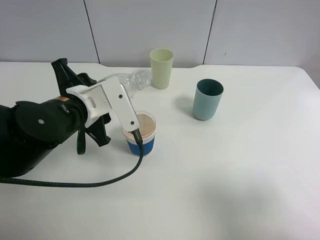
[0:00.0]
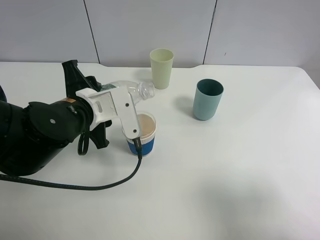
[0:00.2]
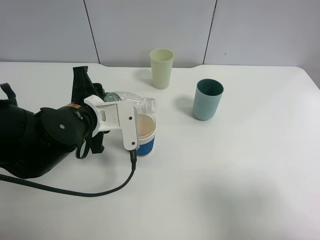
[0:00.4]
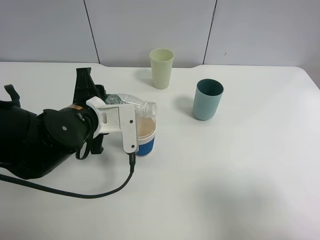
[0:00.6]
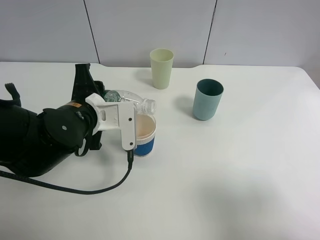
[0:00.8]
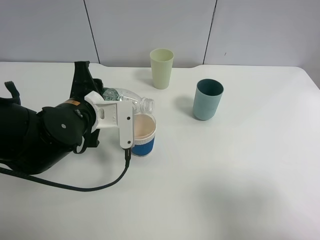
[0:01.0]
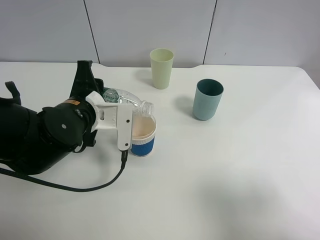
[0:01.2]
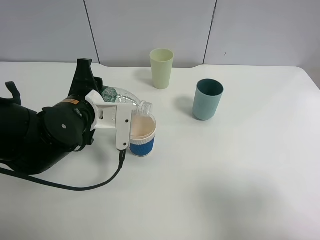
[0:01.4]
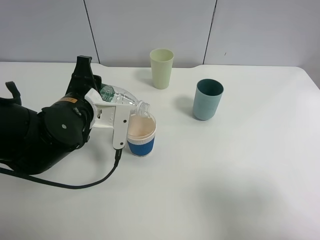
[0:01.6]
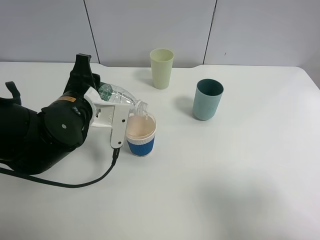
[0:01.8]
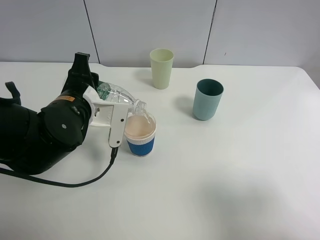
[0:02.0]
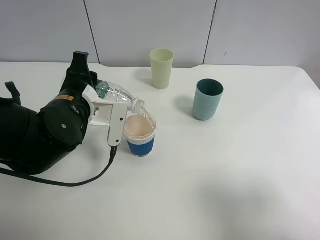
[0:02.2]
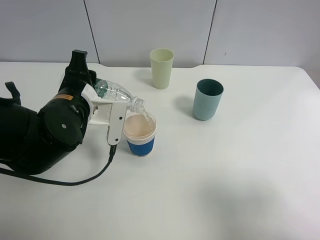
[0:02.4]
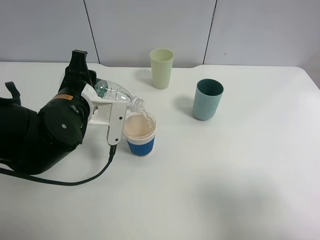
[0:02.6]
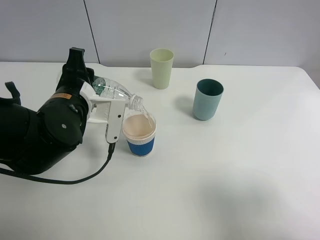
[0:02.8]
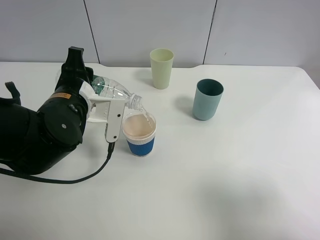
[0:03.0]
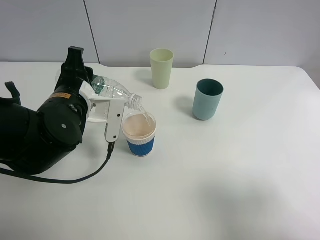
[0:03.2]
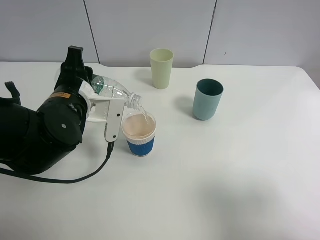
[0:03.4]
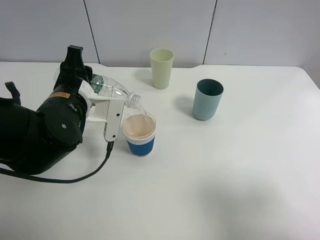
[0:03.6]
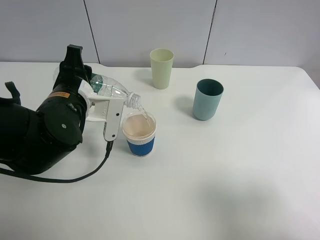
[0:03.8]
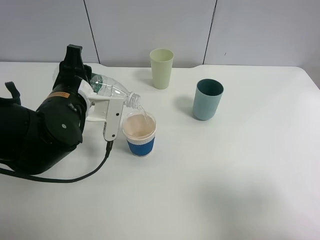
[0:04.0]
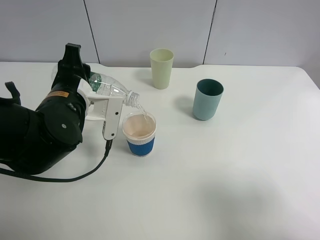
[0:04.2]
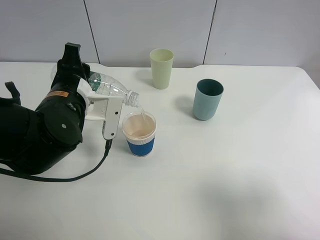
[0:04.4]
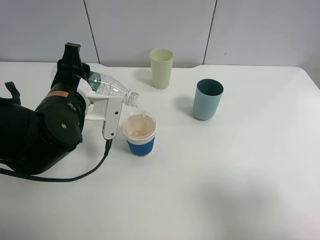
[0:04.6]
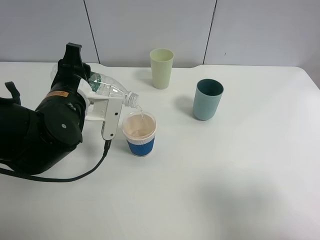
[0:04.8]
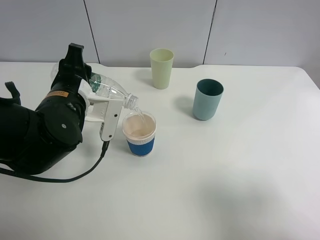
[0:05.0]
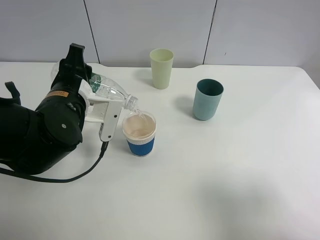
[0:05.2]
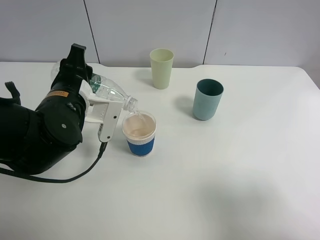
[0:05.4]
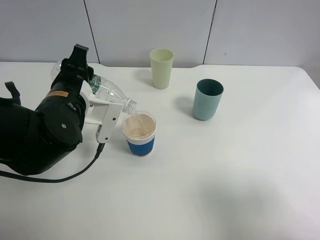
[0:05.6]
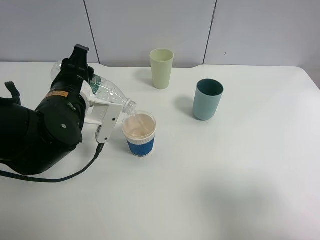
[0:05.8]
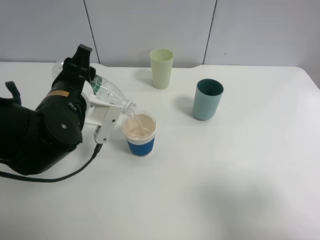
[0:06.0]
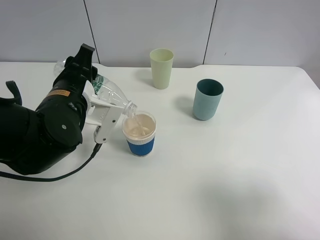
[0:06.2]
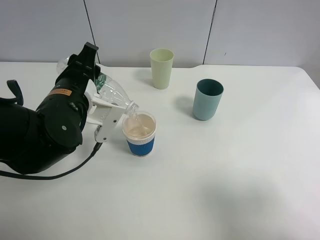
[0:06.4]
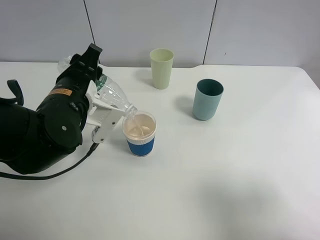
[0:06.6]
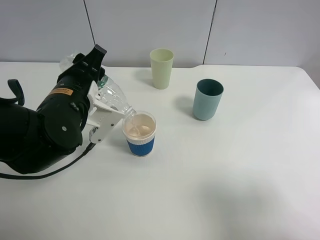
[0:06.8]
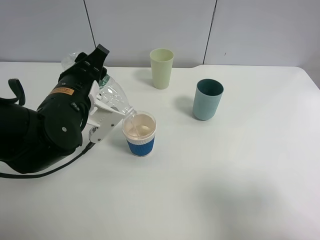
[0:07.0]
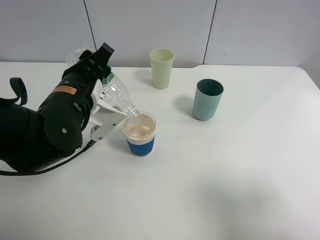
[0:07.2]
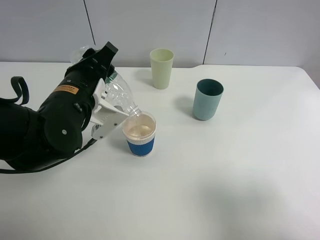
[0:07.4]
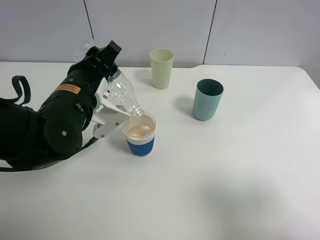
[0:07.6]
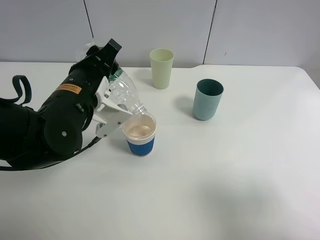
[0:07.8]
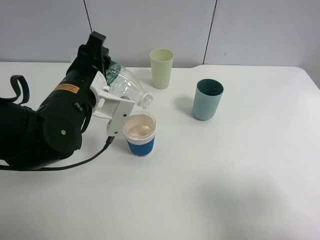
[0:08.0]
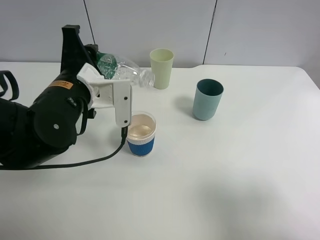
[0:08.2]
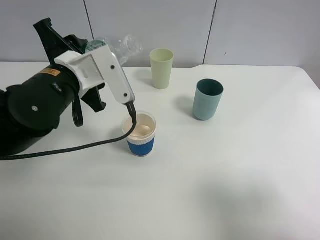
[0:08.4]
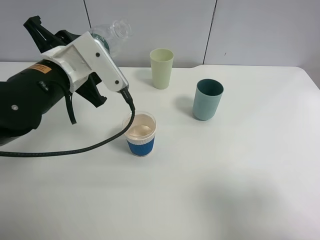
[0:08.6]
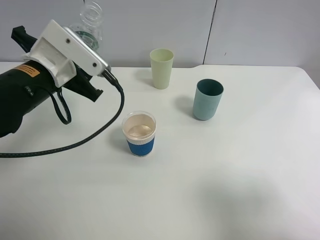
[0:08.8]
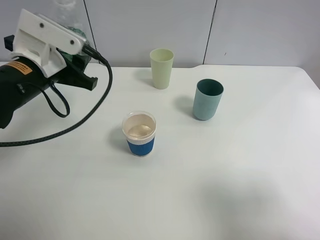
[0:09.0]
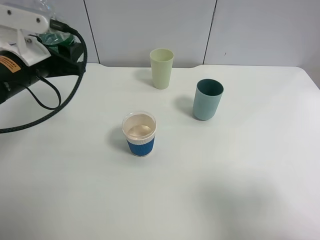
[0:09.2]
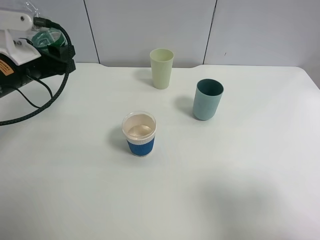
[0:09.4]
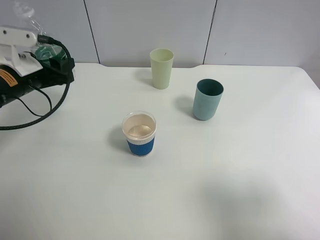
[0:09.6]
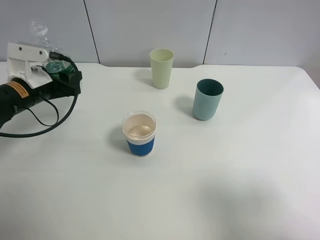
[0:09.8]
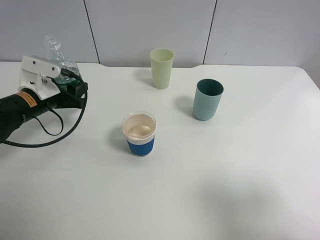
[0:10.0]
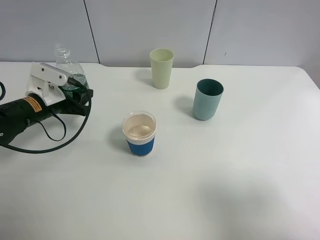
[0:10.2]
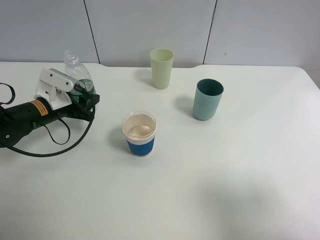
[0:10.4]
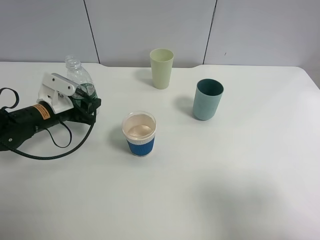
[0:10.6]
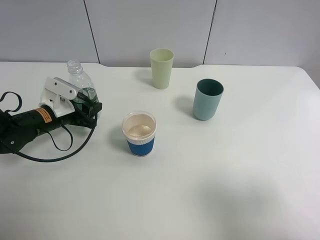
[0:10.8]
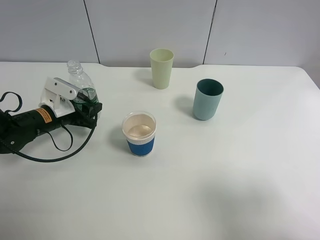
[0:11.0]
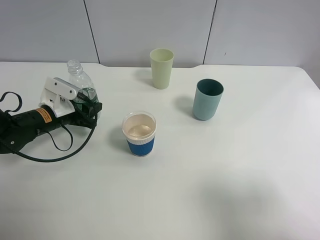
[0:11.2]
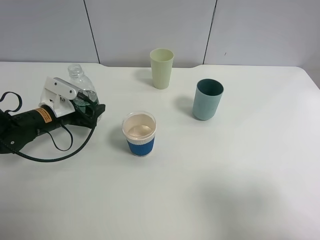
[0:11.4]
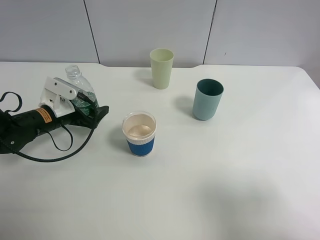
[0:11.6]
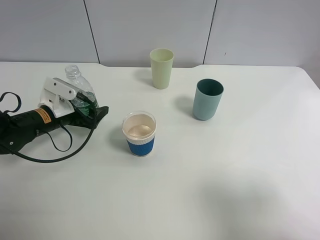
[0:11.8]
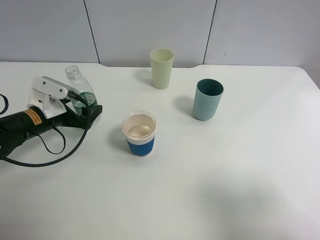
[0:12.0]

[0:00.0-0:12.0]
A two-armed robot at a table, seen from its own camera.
Task of the whole recording: use a clamp to hold the bottle of the drink, pour the beverage into a random cup, then clamp the cup containing the drink and pour the drink into another random cup.
Step, 0:00.0 to 0:08.2: Pour water into the paper cup with left gripper.
0:01.6 to 0:03.0: The grippers stay close to where they were, moving slightly.
0:03.0 to 0:04.4: Both grippers stay put.
0:04.4 to 0:06.0: The grippers make only small movements.
0:07.6 to 0:09.0: The left gripper heads to the left, covering about 5 cm.
0:09.0 to 0:10.4: The left gripper goes some 10 cm downward.
0:10.4 to 0:12.0: The left gripper opens.

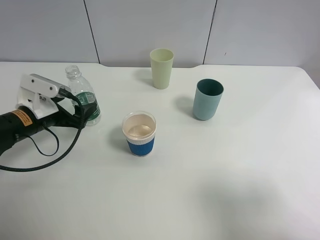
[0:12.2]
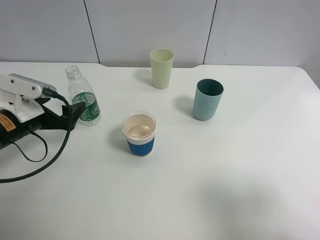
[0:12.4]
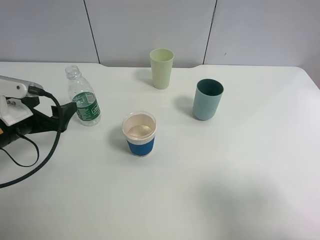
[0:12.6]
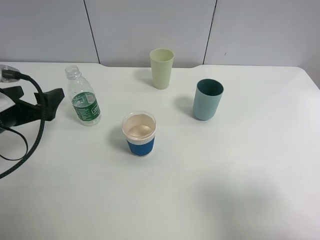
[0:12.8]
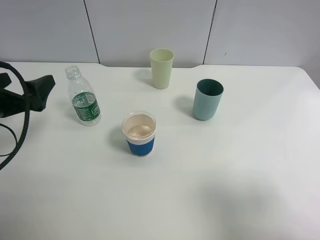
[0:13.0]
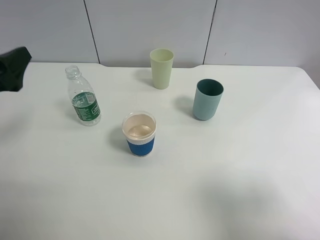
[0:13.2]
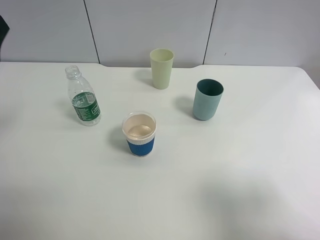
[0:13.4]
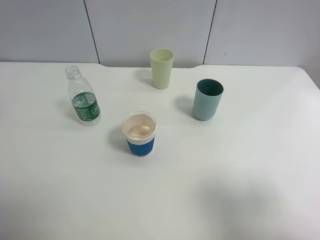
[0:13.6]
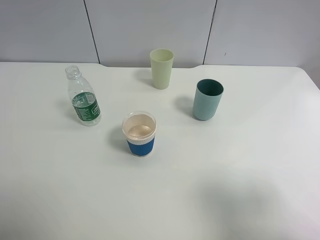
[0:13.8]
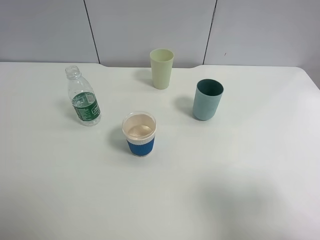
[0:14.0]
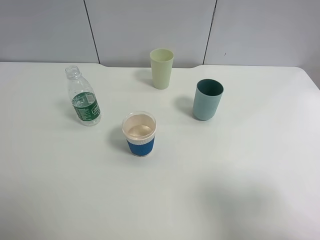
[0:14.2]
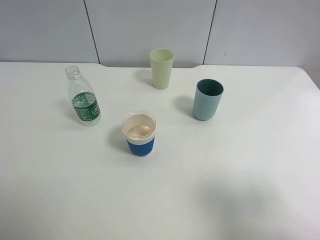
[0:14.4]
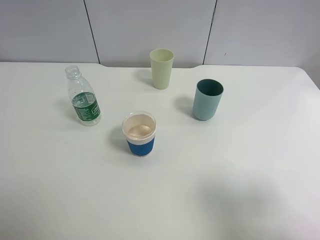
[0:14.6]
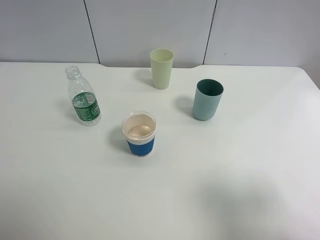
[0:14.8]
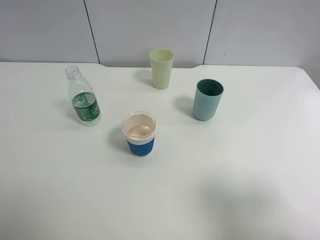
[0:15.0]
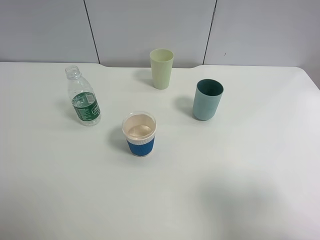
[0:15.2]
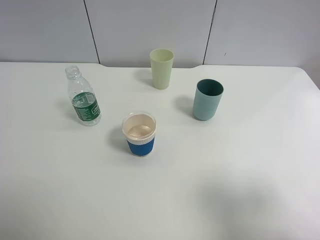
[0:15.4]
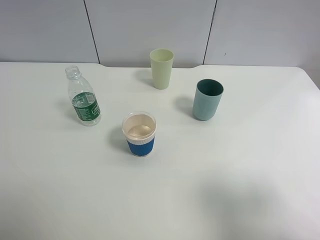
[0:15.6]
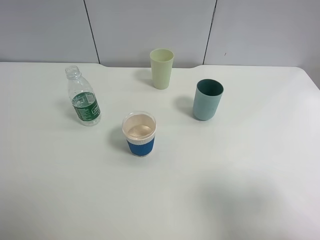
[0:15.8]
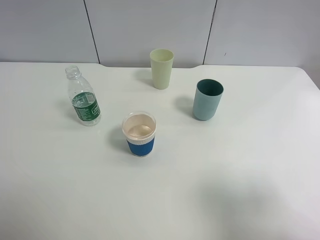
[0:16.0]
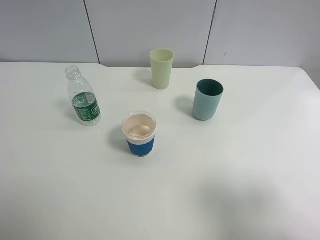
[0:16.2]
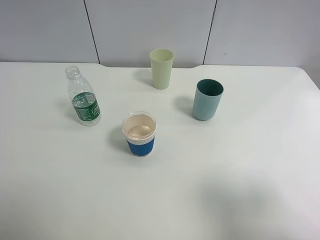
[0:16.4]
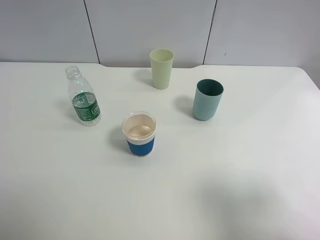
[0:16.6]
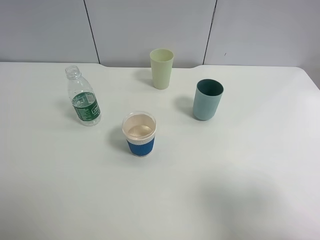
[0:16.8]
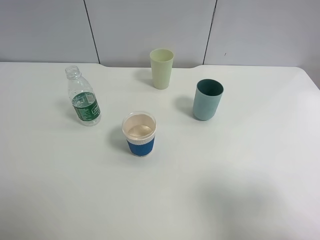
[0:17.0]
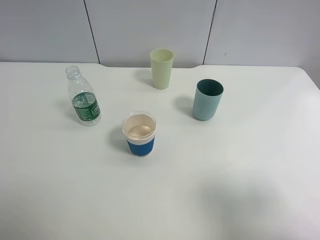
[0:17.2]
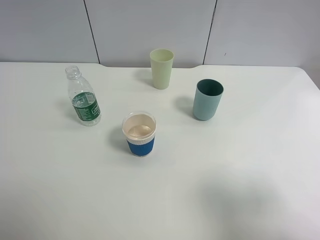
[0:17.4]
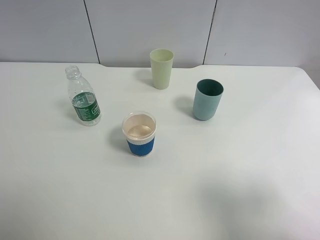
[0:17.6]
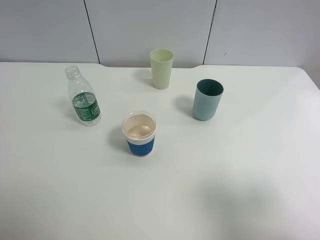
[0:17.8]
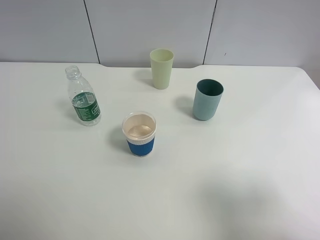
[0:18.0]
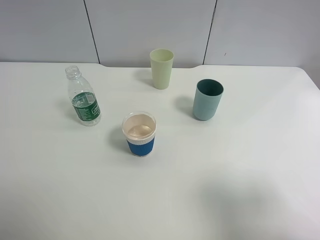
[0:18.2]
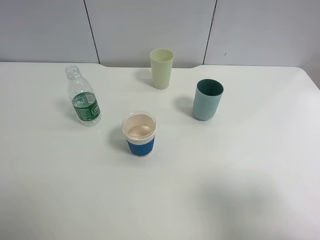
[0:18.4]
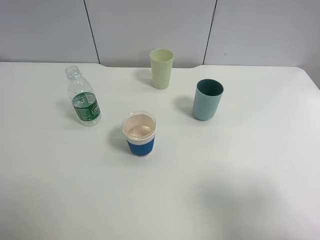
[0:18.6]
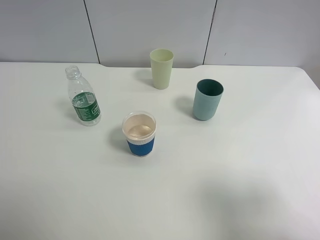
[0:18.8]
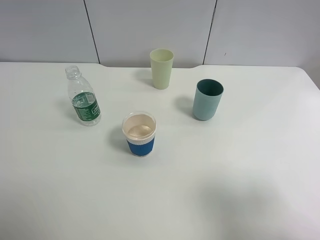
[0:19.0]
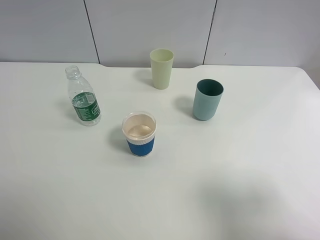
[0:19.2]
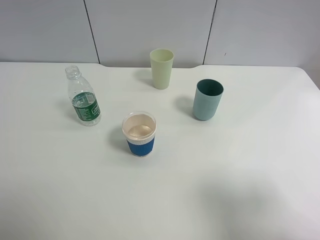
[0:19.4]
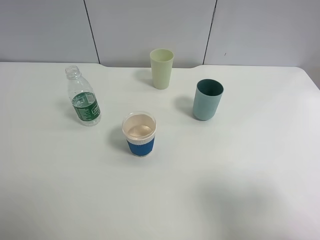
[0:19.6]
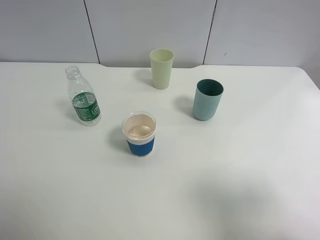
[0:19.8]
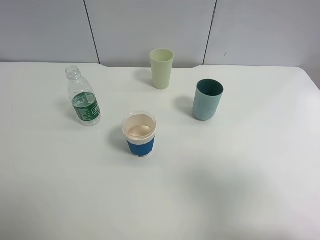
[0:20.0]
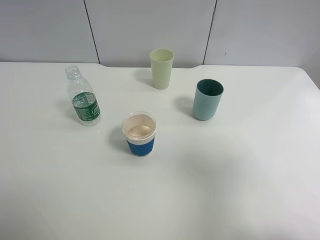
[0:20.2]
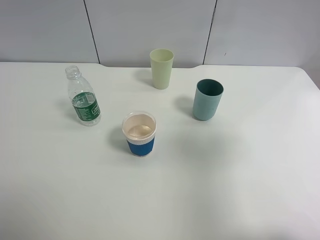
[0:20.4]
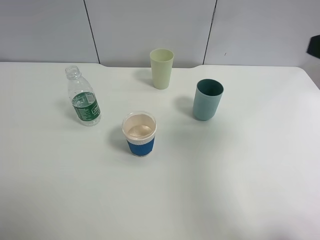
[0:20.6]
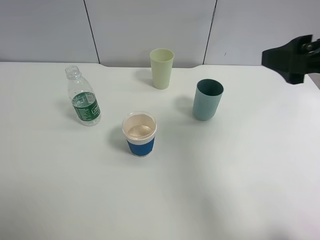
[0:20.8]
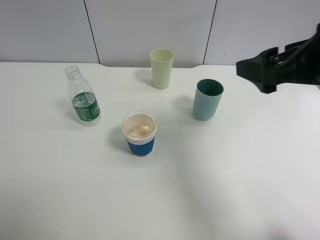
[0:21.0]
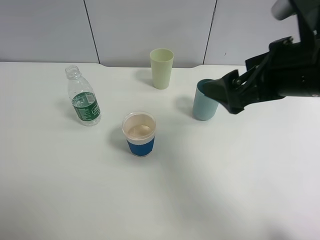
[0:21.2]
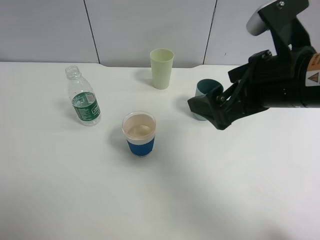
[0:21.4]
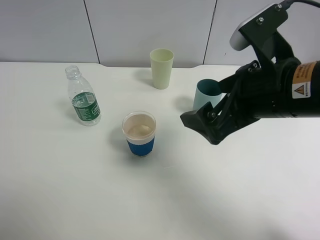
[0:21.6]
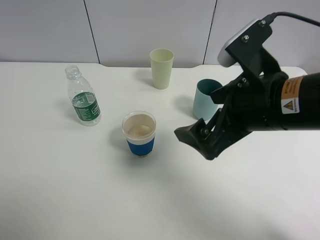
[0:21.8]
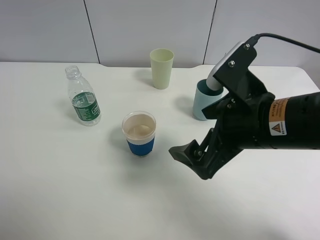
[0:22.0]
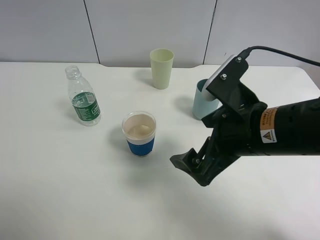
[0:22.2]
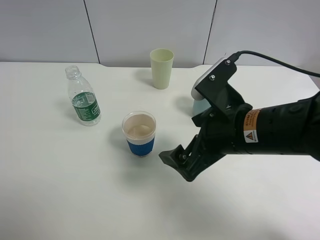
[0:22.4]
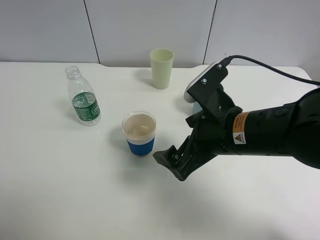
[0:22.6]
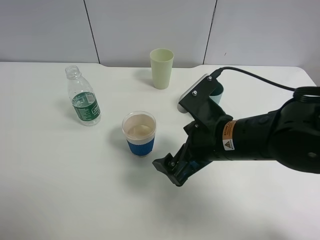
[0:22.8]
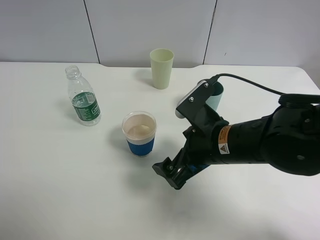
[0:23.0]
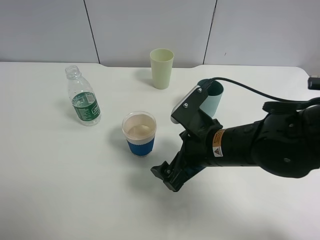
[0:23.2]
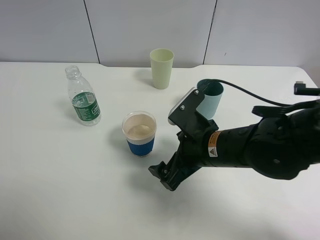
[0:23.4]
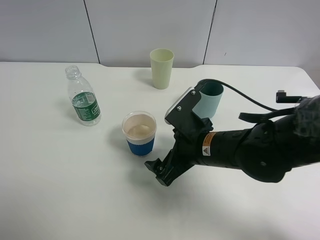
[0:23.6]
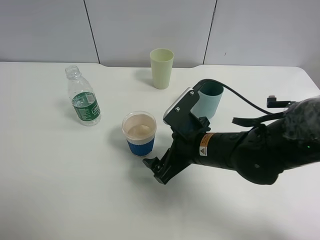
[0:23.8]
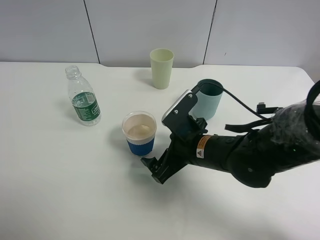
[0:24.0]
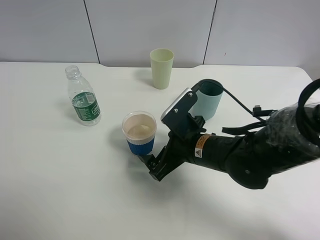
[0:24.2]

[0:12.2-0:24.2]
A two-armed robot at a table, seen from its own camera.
Task of the whole recording: use a clamp to hold the bottle of the drink, pour the beverage into a random cup, then clamp the cup containing the drink and pour the drink into another random cup.
0:12.2 to 0:13.8: The left gripper moves upward and backward, approximately 30 cm.
0:16.6 to 0:19.8: Both grippers stay about where they are.
0:19.8 to 0:21.2: The right gripper heads forward and to the left, covering approximately 20 cm.
0:21.2 to 0:22.6: The right gripper goes some 10 cm downward and to the left.
0:22.6 to 0:24.2: The right gripper goes about 10 cm downward.
